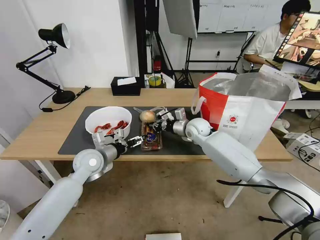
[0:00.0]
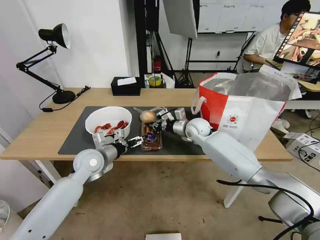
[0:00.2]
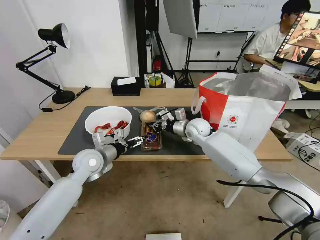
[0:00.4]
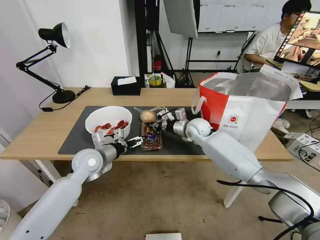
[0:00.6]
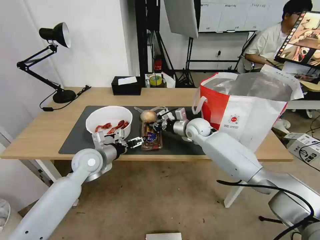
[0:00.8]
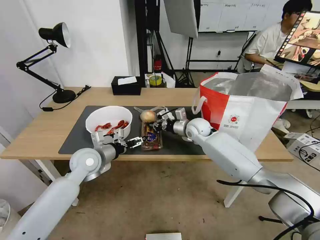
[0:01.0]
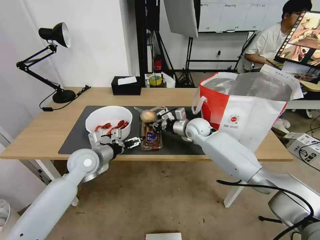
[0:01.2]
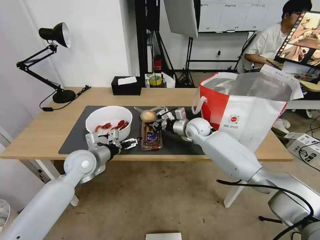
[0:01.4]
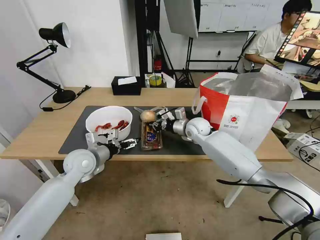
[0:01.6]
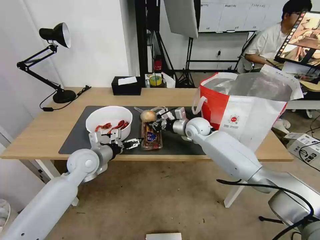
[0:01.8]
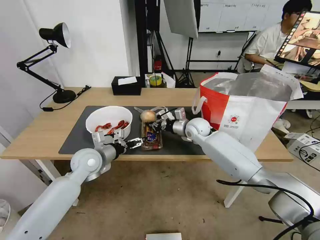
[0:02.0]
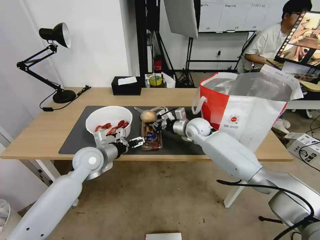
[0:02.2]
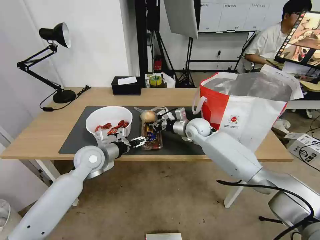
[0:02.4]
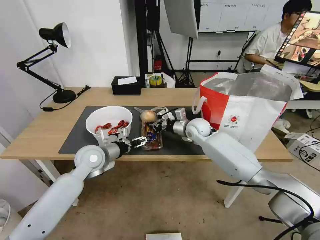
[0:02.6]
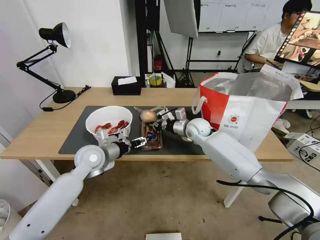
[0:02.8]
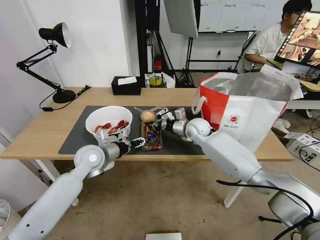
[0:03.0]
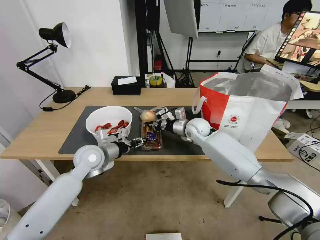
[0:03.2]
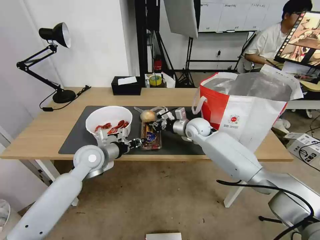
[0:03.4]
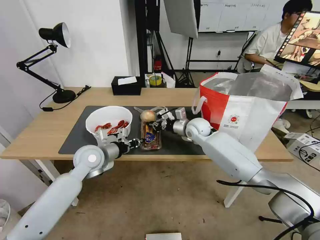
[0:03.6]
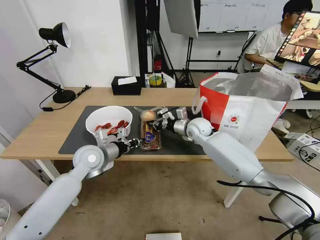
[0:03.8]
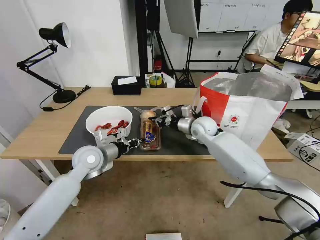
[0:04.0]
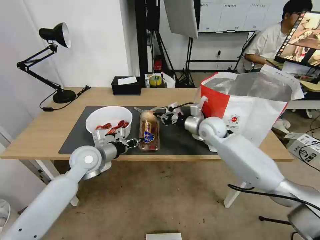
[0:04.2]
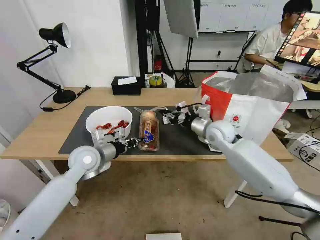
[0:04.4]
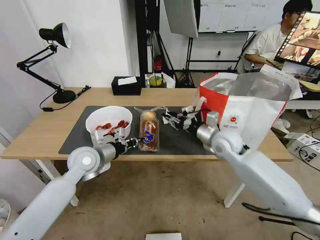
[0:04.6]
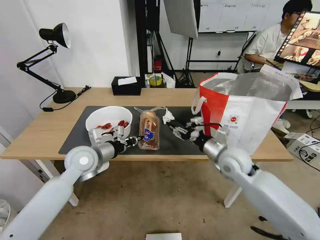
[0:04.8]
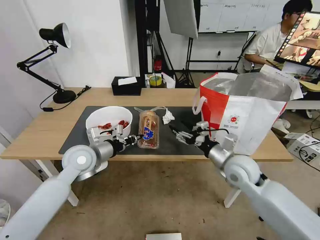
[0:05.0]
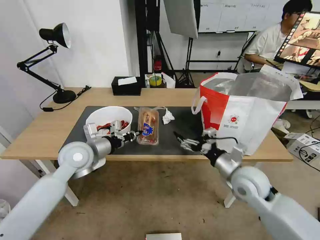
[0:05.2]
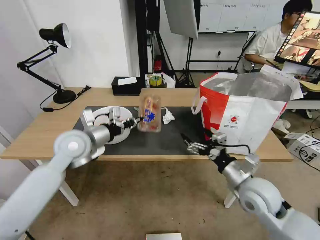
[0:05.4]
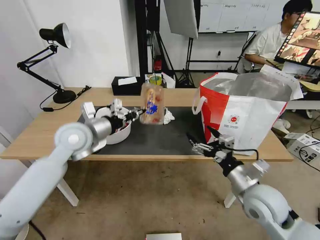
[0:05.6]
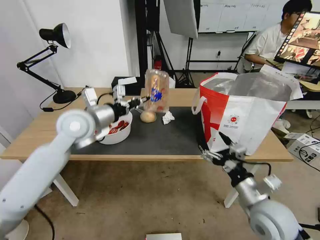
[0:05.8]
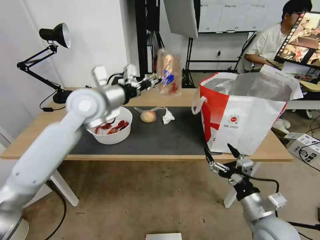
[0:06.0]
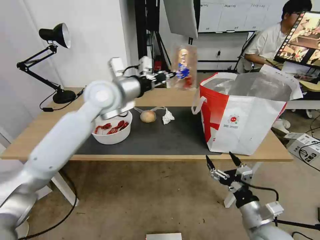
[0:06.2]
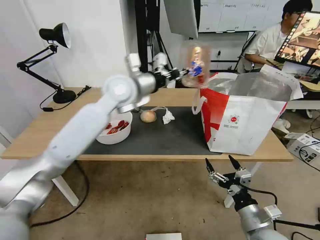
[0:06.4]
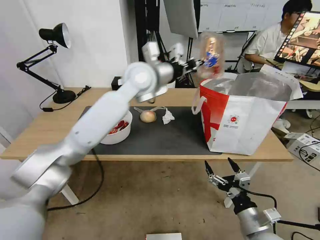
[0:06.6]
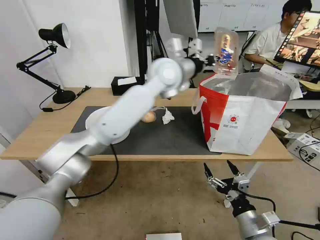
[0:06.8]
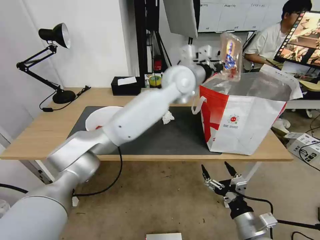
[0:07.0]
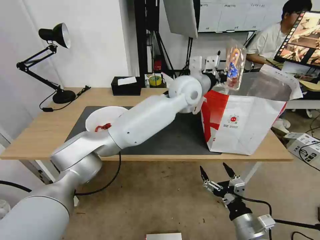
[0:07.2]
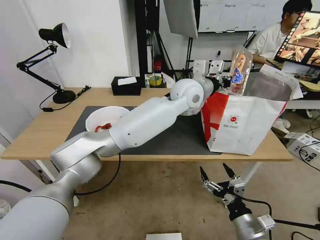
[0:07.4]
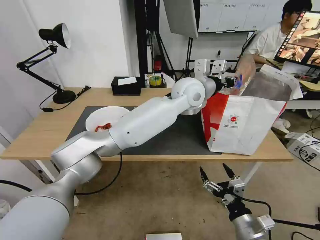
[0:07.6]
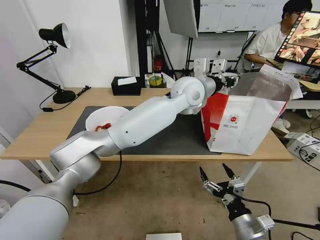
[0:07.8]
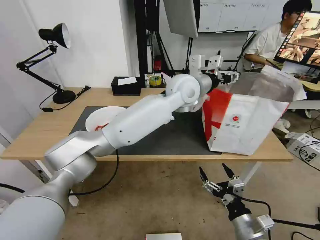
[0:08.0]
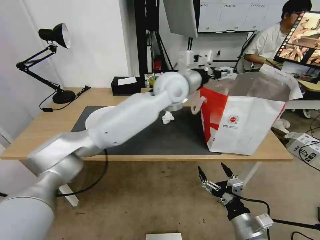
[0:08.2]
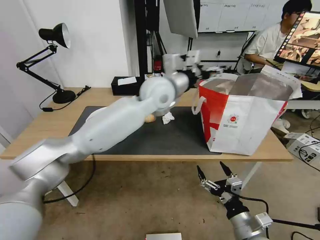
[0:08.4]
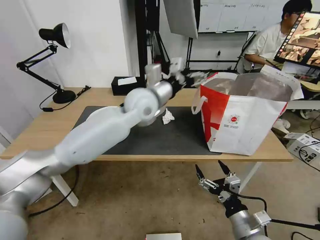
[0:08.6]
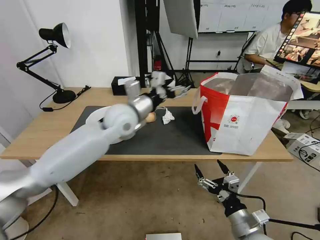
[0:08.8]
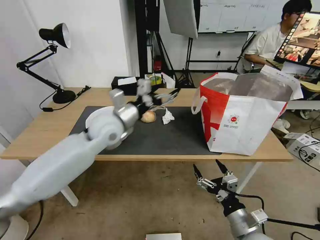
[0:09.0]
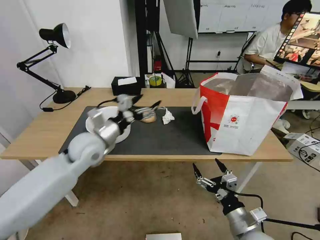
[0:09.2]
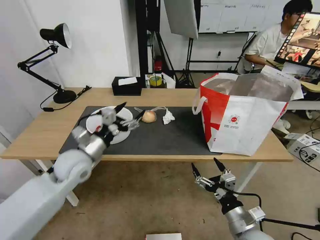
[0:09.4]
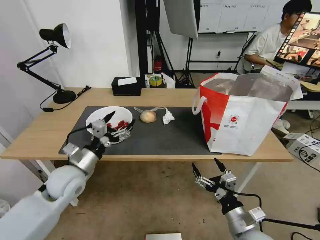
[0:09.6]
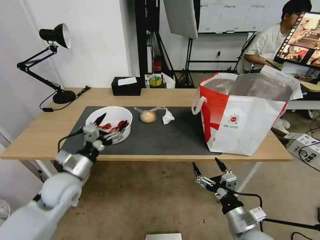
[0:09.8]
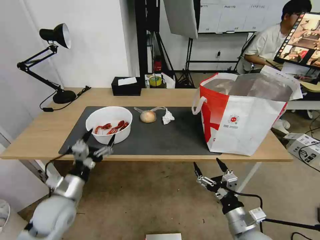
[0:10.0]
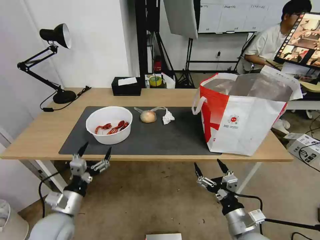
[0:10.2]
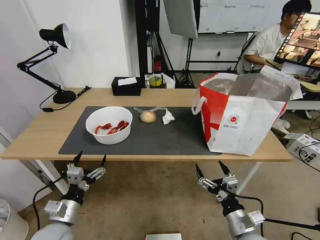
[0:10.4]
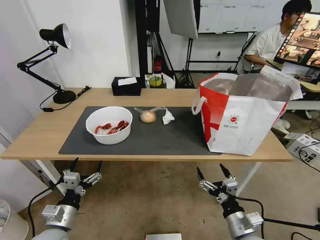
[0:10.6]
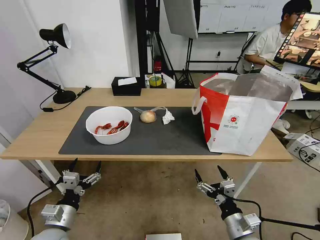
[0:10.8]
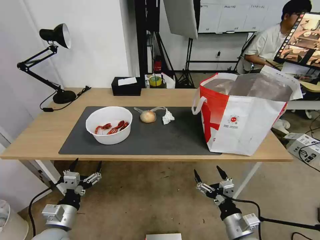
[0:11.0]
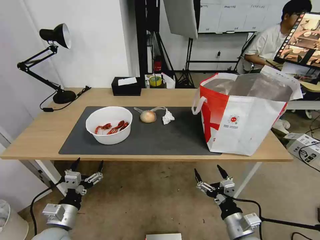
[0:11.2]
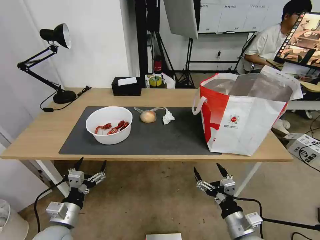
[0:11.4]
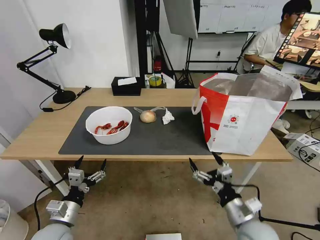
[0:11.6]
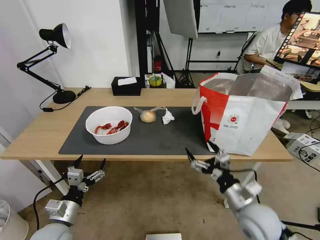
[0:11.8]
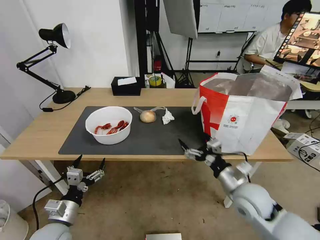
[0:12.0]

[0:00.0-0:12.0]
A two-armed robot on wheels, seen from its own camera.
Task of the whole recording: Pick up the trash from the table and place it into the takeout bag.
0:00.0 to 0:01.6: The grippers move only a little.
0:01.6 to 0:03.0: The left gripper closes its fingers.
0:03.0 to 0:04.4: The left gripper closes its fingers. Meanwhile the right gripper is displaced backward and to the right by approximately 10 cm.
0:04.4 to 0:06.0: The left gripper shifts about 15 cm upward. Meanwhile the right gripper moves backward, approximately 30 cm, and opens.
0:06.0 to 0:07.6: The left gripper shifts some 30 cm to the right, while the right gripper shifts approximately 5 cm downward.
0:07.6 to 0:09.0: The left gripper is displaced to the left by some 25 cm, and opens.
0:09.0 to 0:10.4: The left gripper goes approximately 35 cm backward, downward and to the left.
0:10.4 to 0:12.0: The right gripper goes roughly 15 cm forward and upward.

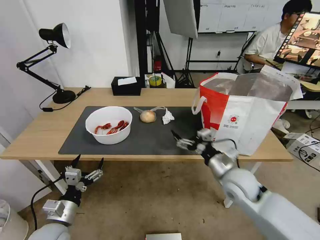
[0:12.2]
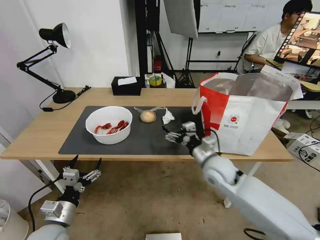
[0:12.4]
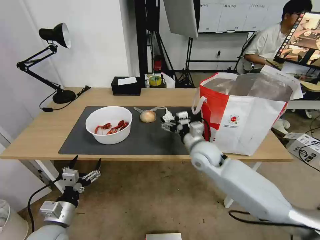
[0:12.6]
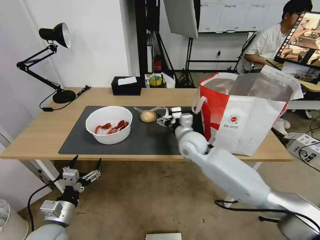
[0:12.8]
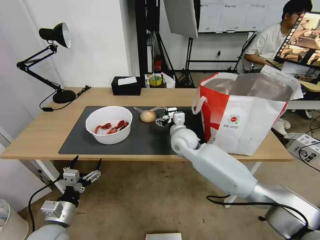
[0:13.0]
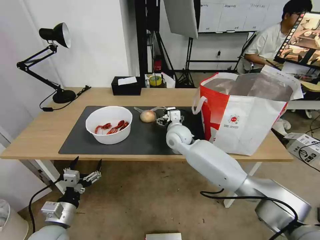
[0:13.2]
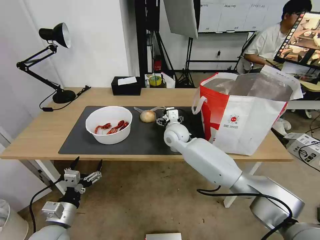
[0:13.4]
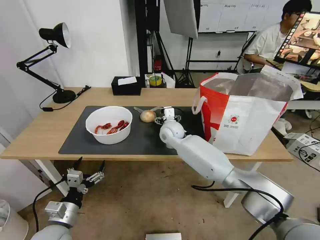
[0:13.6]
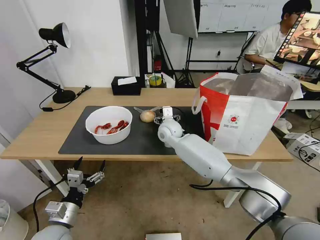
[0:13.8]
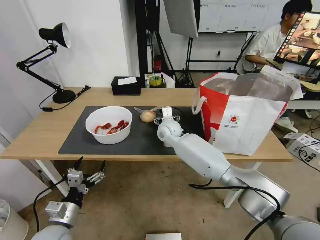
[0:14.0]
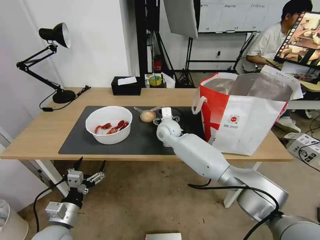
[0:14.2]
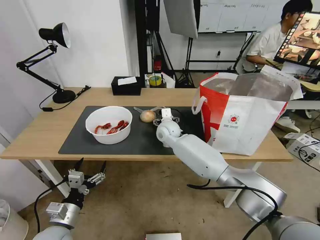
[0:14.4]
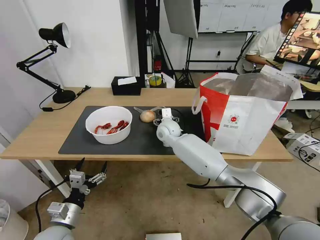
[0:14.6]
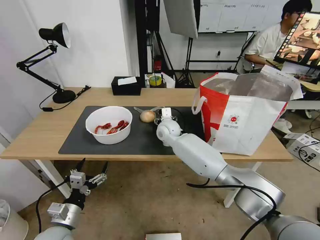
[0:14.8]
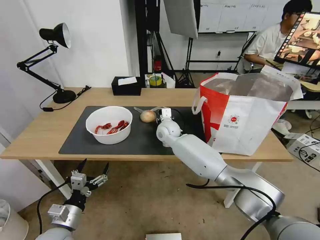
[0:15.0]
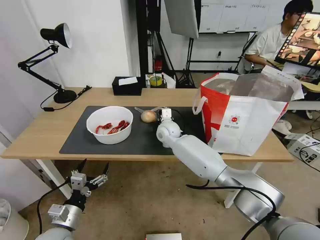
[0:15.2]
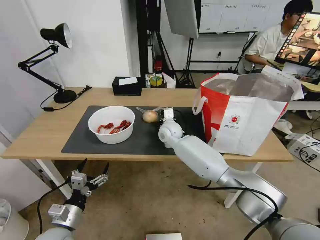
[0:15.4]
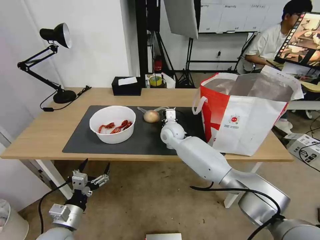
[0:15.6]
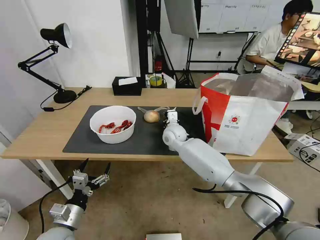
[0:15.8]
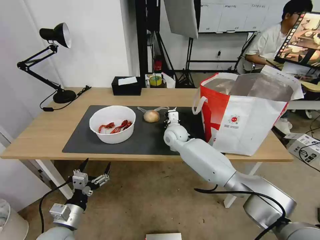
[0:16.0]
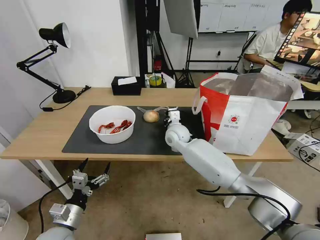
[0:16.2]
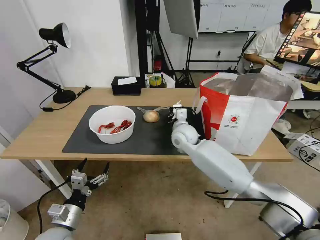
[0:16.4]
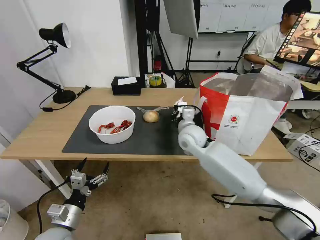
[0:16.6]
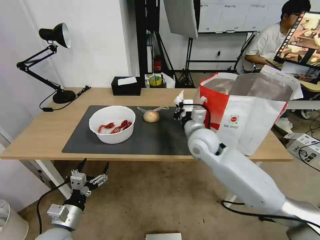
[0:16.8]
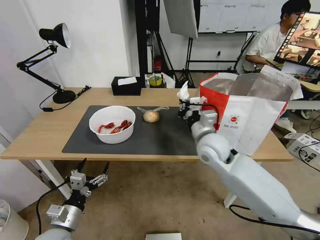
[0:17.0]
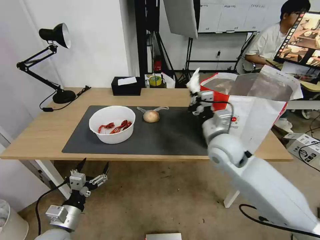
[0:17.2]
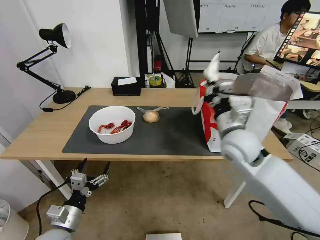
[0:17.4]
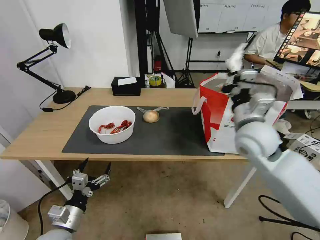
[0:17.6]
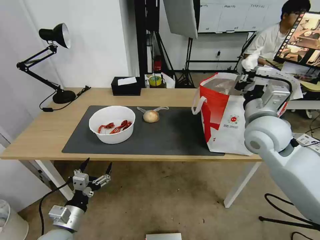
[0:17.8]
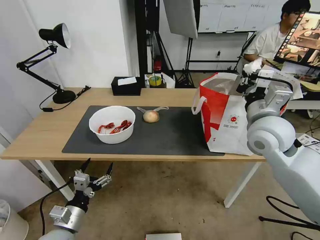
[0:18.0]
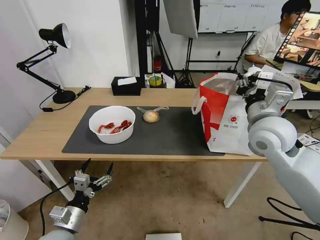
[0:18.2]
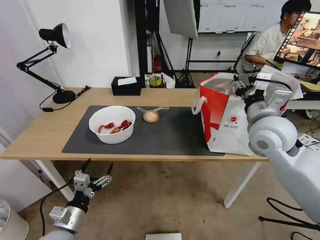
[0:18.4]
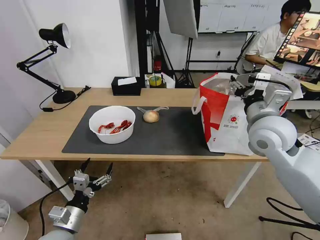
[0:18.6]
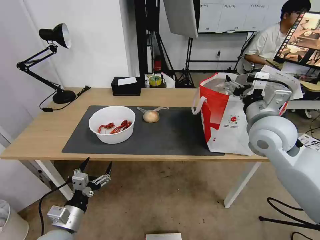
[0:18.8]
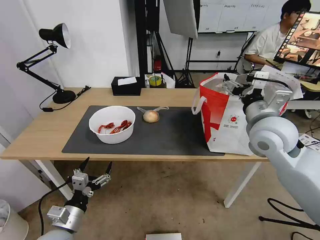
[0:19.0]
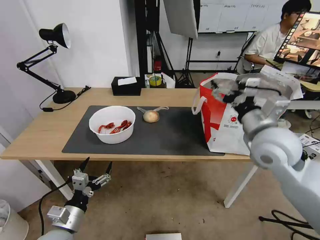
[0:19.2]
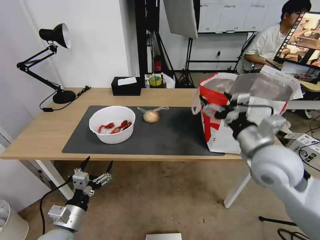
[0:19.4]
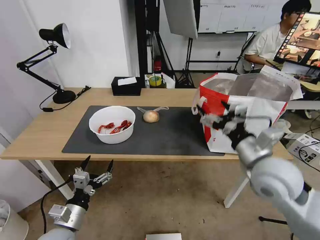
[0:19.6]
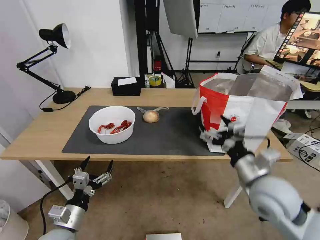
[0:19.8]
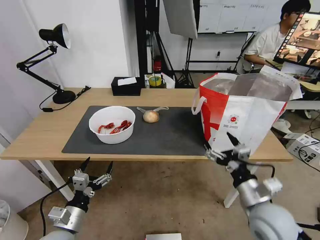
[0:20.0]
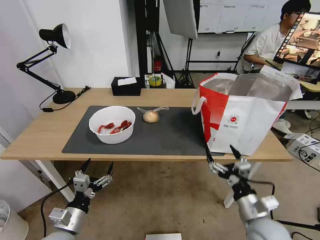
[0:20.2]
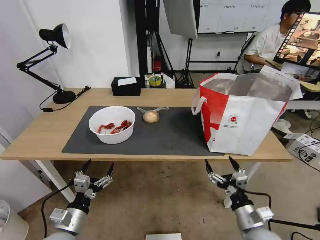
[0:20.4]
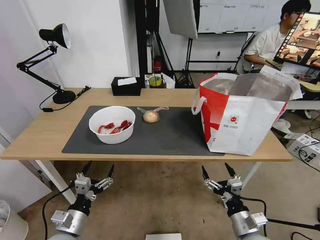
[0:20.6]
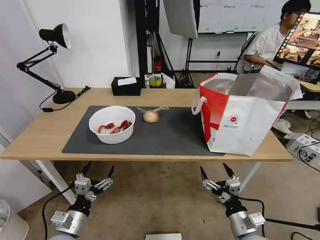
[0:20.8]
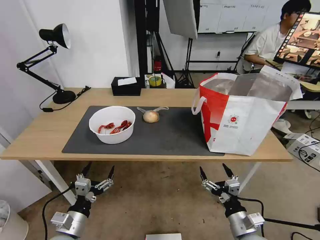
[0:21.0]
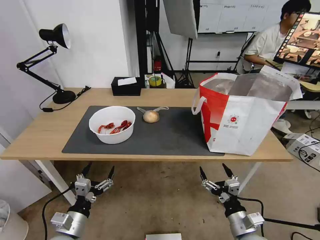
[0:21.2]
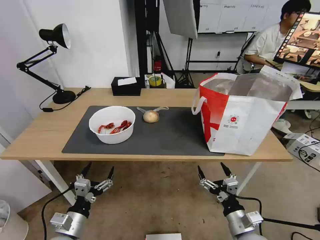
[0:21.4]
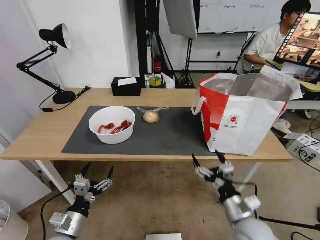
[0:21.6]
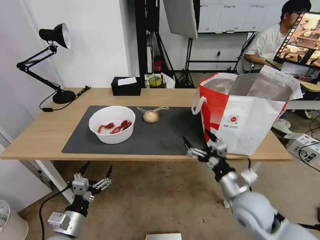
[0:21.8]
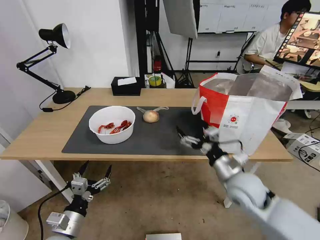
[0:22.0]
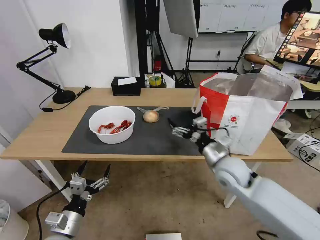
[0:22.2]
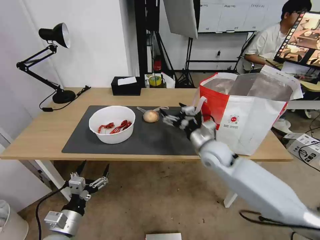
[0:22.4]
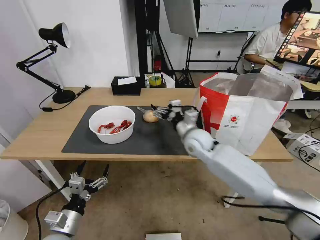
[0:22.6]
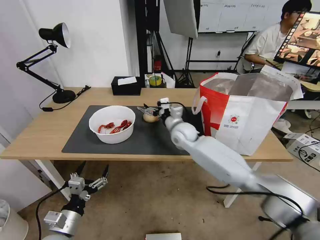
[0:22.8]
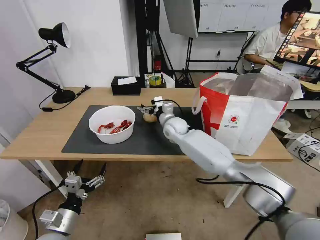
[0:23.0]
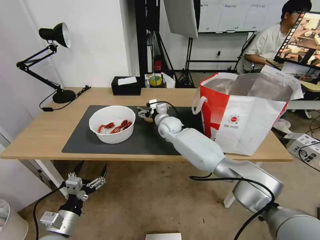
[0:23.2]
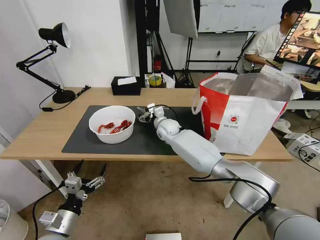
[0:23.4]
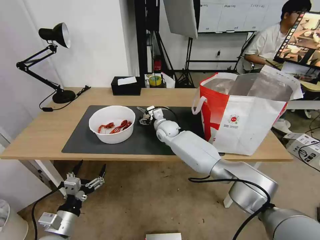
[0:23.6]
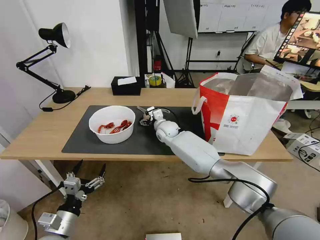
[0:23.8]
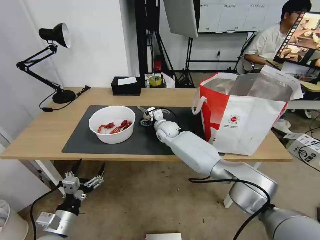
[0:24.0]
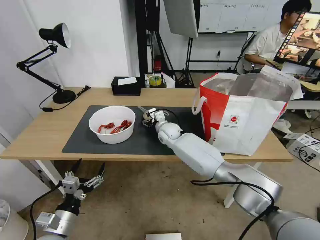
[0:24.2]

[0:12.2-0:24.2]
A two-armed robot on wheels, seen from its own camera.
Task of the whole recording: Pick up the trash from the table and place it into the takeout bag.
0:12.2 to 0:13.8: The right gripper travels forward and to the left by about 30 cm.
0:13.8 to 0:15.2: The right gripper closes.
0:15.2 to 0:16.6: The right gripper goes some 10 cm to the right and backward, and closes.
0:16.6 to 0:18.2: The right gripper heads to the right, upward and backward, covering about 20 cm.
0:18.2 to 0:19.8: The right gripper shifts some 15 cm backward and downward, and opens its fingers.
0:19.8 to 0:21.2: The right gripper shifts roughly 20 cm downward and backward.
0:21.2 to 0:22.6: The right gripper heads forward, upward and to the left, covering roughly 35 cm.
0:22.6 to 0:24.2: The right gripper heads forward, to the left and downward, covering about 15 cm.
